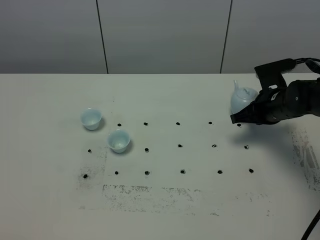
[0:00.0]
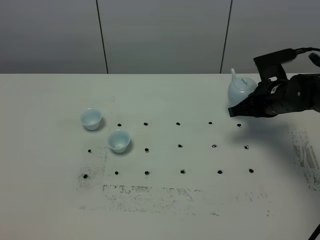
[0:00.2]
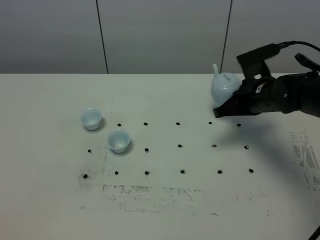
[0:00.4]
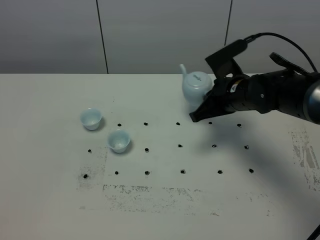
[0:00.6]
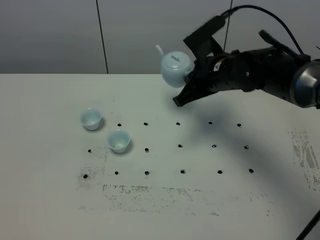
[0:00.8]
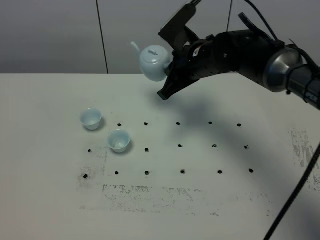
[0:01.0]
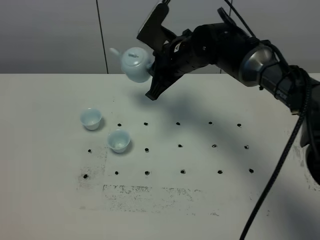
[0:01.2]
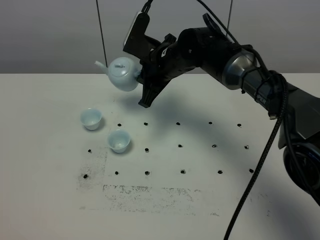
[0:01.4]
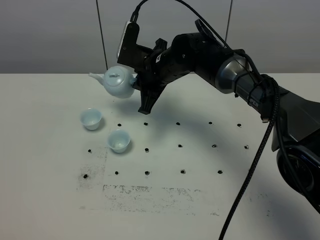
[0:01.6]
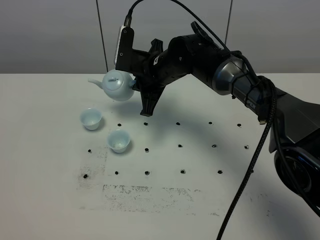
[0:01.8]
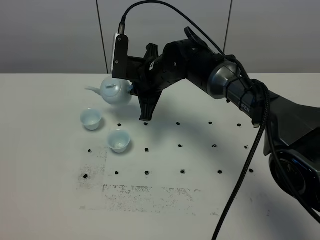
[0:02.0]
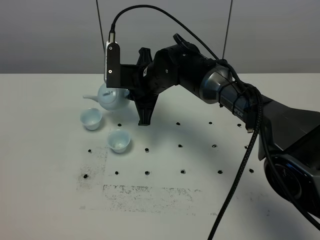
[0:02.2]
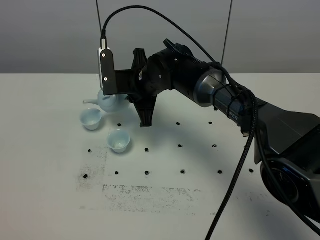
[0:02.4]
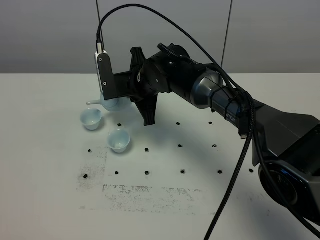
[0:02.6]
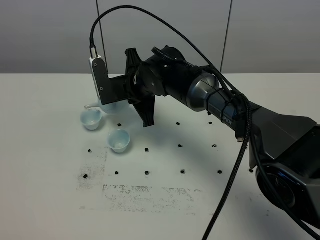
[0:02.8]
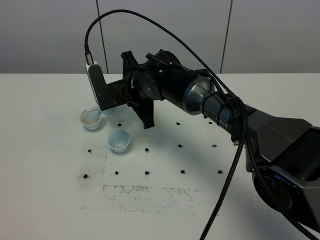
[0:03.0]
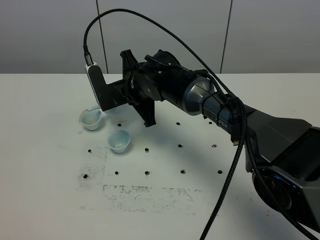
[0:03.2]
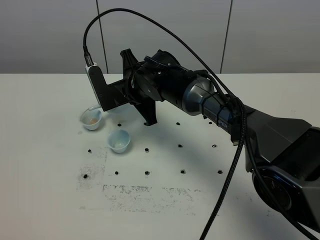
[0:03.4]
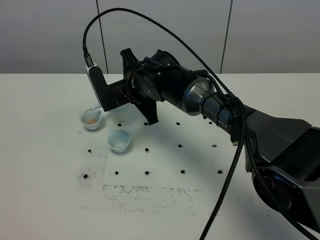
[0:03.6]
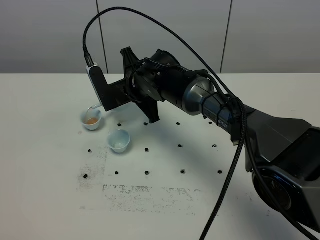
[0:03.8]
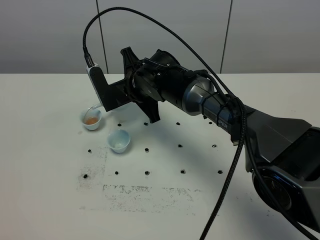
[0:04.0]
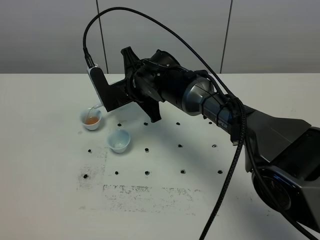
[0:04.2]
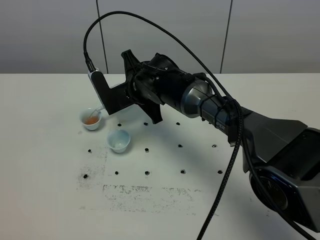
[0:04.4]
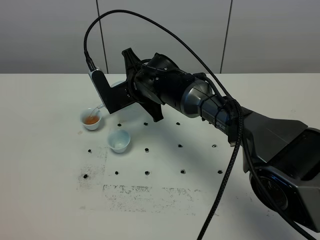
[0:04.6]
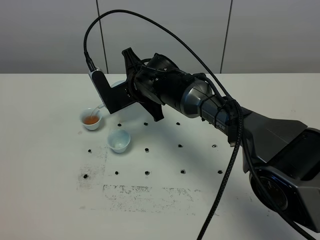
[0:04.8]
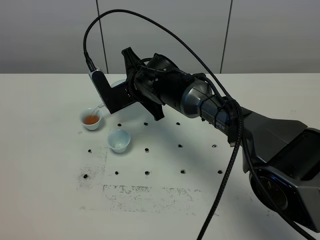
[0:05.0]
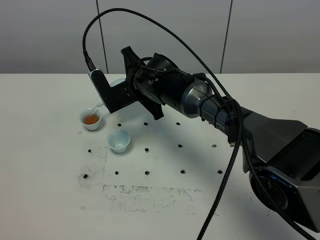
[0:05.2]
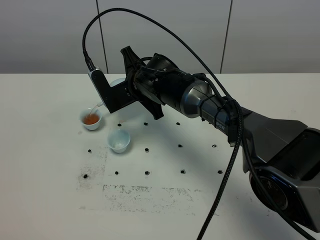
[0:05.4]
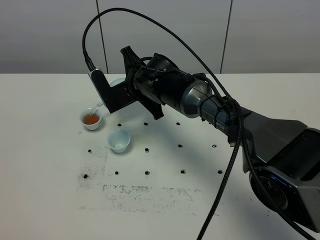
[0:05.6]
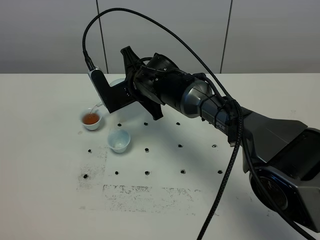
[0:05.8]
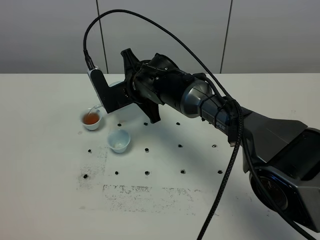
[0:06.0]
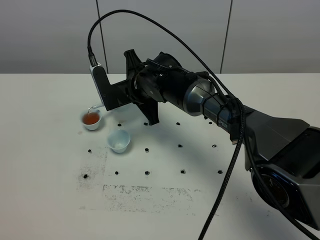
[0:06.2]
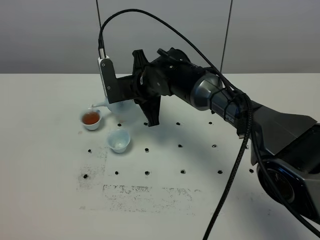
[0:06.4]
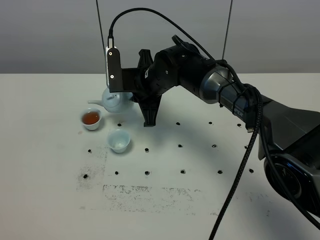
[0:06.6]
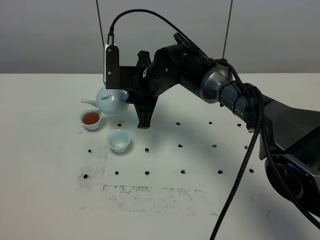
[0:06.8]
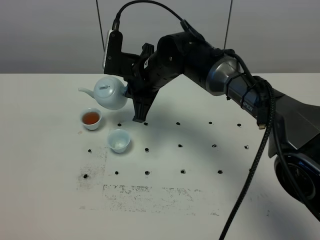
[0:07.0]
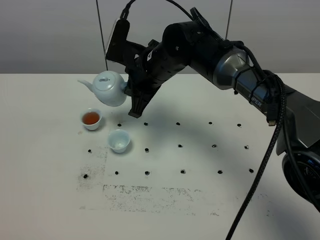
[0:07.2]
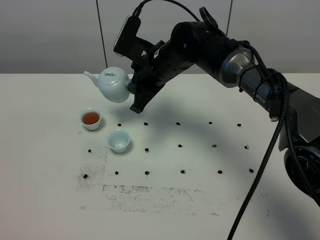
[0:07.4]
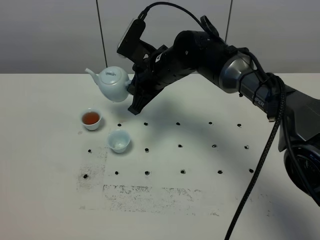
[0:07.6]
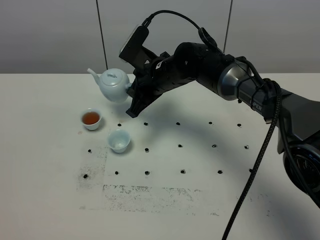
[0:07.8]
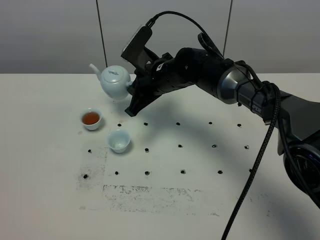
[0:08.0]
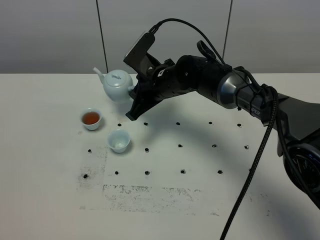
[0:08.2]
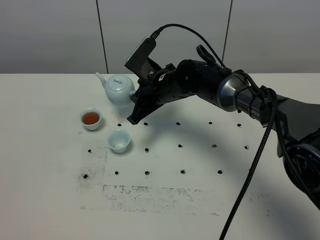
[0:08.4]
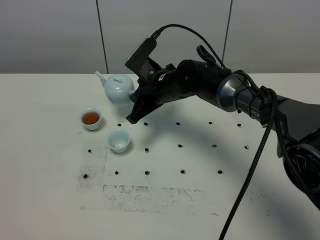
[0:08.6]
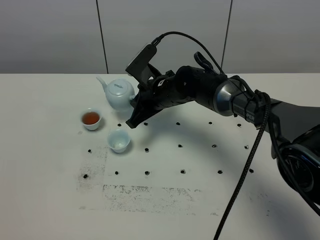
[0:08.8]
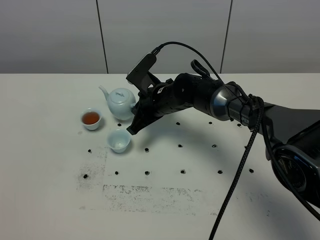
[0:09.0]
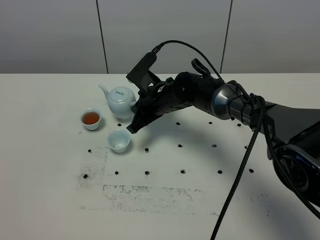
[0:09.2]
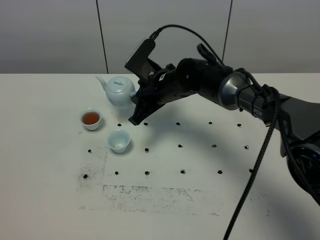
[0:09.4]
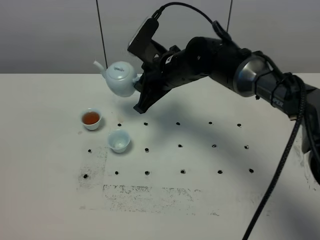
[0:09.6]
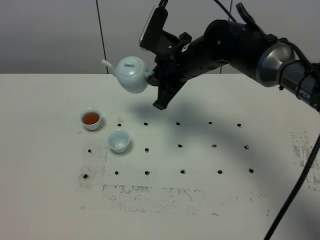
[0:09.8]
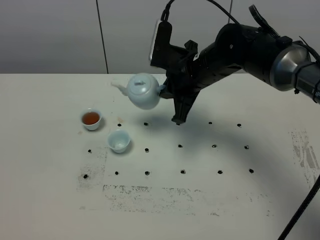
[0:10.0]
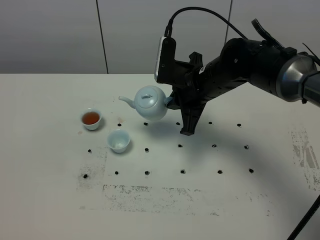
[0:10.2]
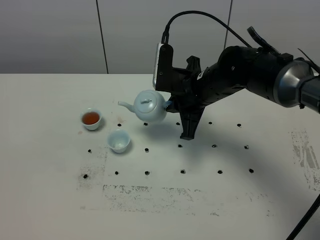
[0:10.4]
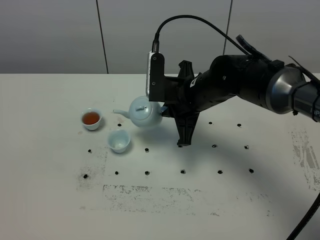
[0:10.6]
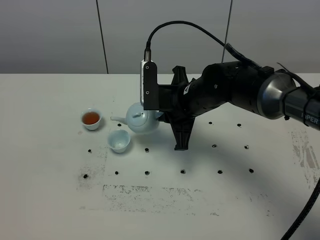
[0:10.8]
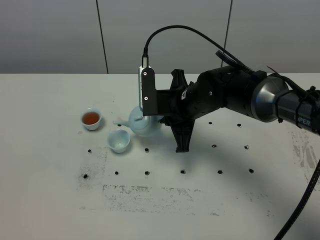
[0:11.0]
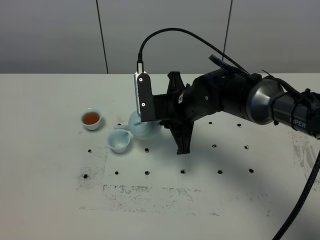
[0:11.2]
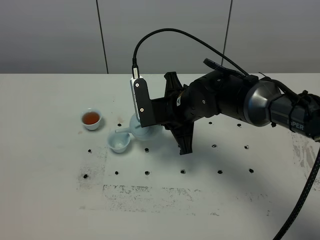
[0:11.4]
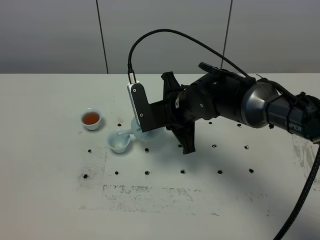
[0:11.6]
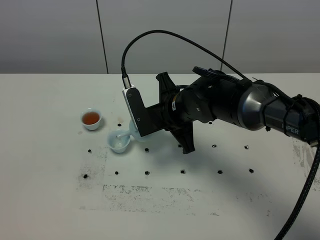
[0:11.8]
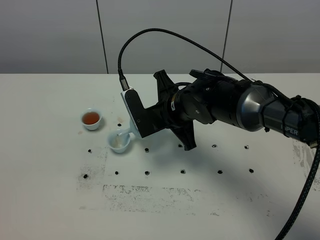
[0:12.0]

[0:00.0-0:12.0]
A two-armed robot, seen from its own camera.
Task of the whole recording: grasp the blue porcelain teapot and pour the tea into the two blue porcelain teacups one by one, put the blue porcelain teapot back in its original place.
Step, 0:00.4 to 0:06.4: Pour tea into the teacup with the right gripper.
0:00.0 to 0:01.6: The right gripper is displaced to the left by approximately 20 cm.
0:01.6 to 0:03.0: The right gripper shifts by some 5 cm.
0:03.0 to 0:04.4: The grippers stay close to where they were, moving slightly.
0:04.4 to 0:06.0: Both grippers stay about where they are.
0:07.6 to 0:09.0: The right gripper heads downward, covering approximately 10 cm.
0:09.0 to 0:10.4: The right gripper is displaced upward, to the right and backward by approximately 10 cm.

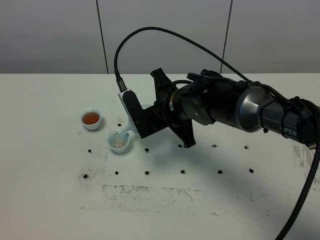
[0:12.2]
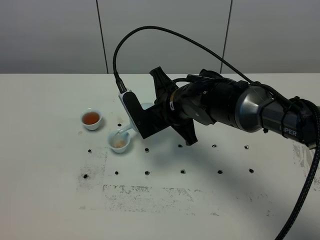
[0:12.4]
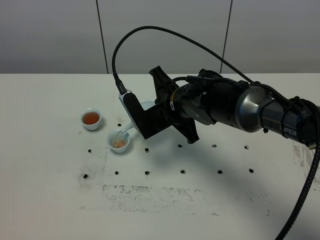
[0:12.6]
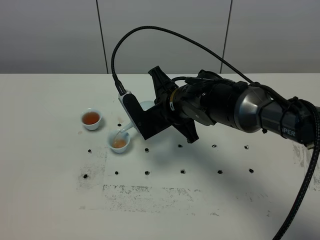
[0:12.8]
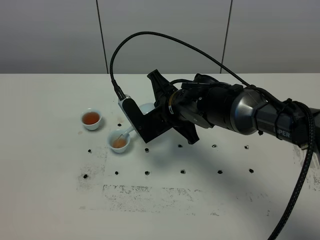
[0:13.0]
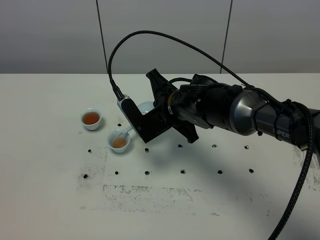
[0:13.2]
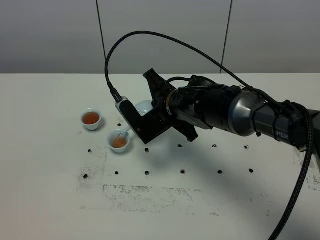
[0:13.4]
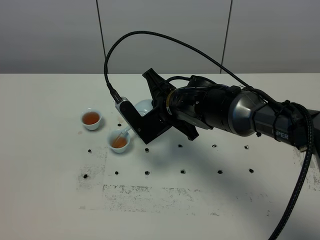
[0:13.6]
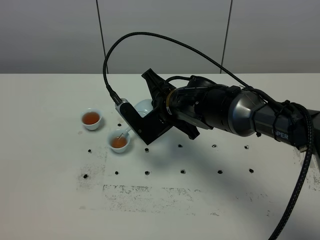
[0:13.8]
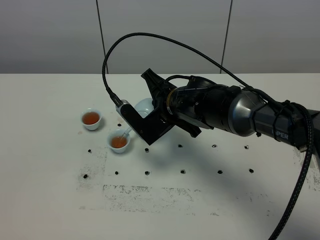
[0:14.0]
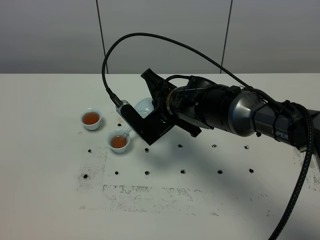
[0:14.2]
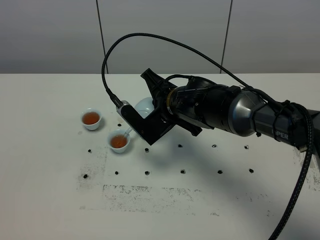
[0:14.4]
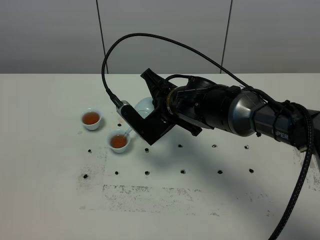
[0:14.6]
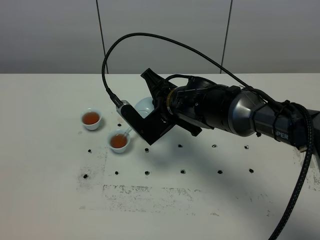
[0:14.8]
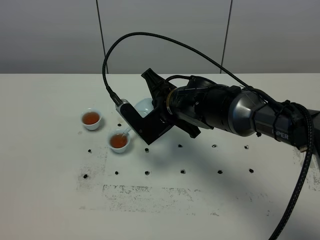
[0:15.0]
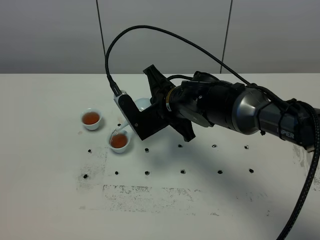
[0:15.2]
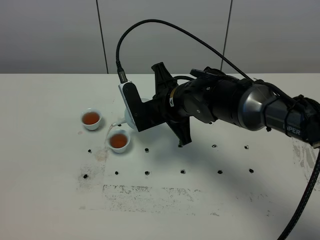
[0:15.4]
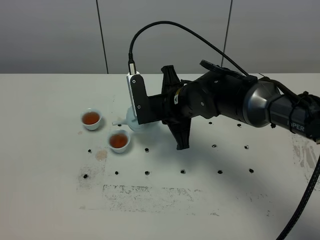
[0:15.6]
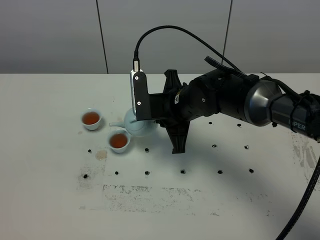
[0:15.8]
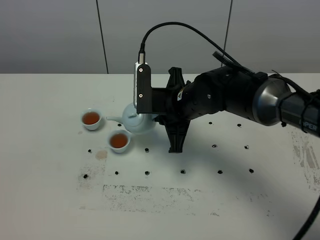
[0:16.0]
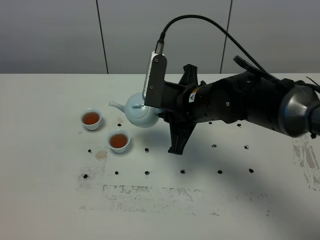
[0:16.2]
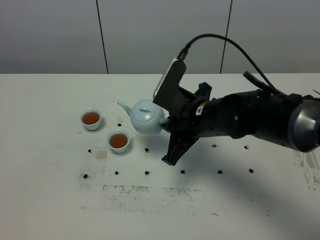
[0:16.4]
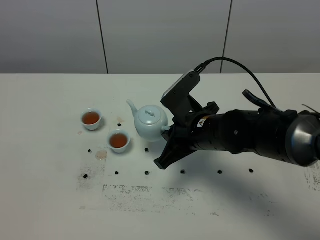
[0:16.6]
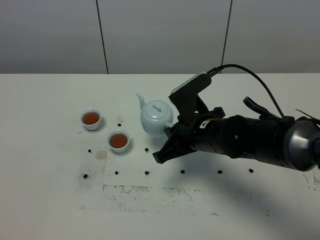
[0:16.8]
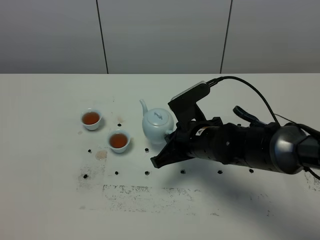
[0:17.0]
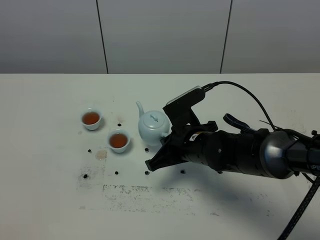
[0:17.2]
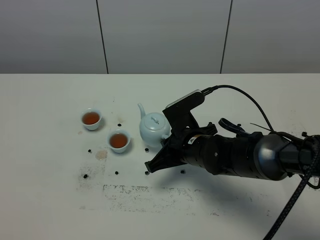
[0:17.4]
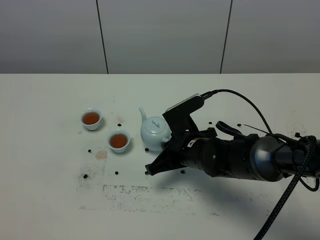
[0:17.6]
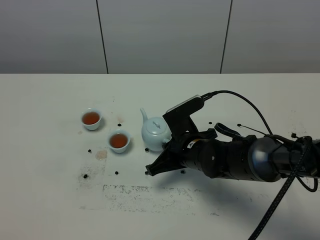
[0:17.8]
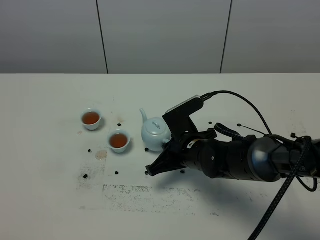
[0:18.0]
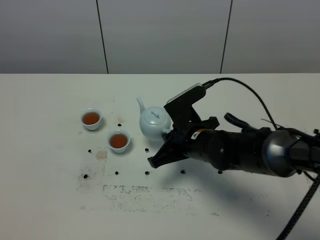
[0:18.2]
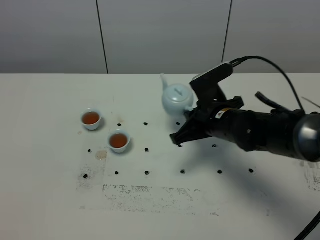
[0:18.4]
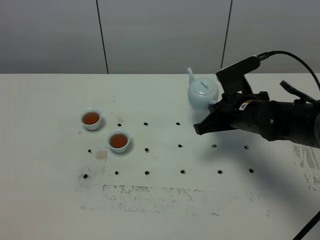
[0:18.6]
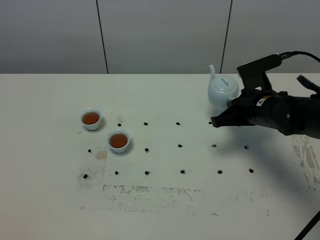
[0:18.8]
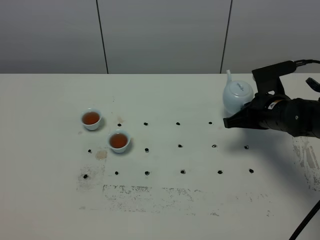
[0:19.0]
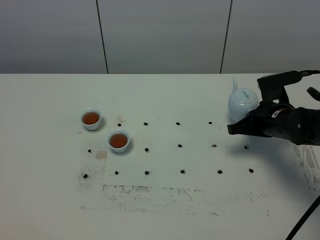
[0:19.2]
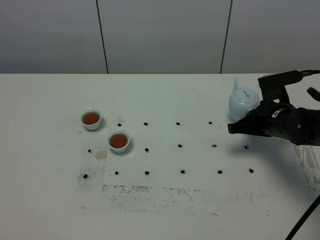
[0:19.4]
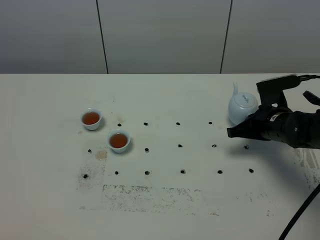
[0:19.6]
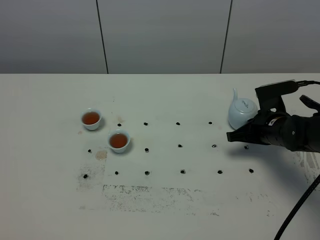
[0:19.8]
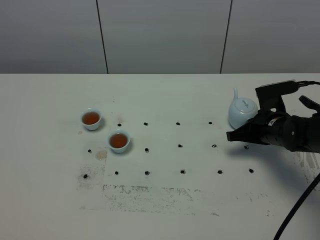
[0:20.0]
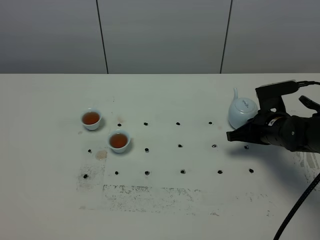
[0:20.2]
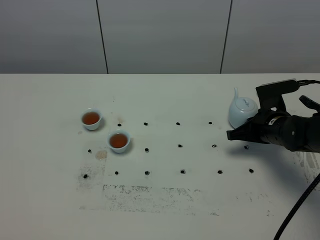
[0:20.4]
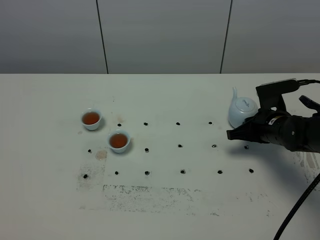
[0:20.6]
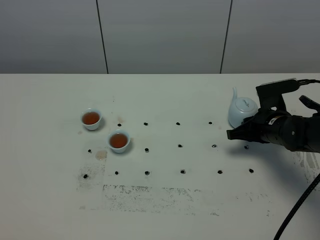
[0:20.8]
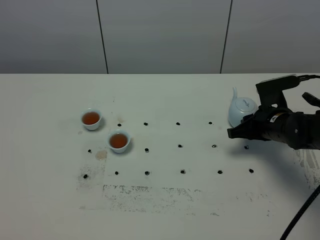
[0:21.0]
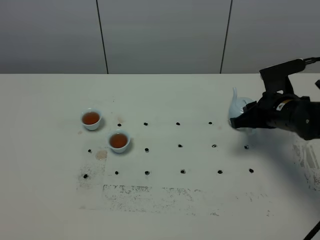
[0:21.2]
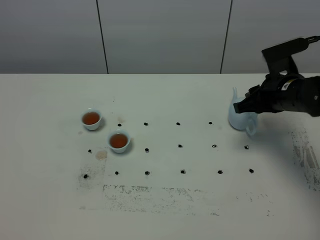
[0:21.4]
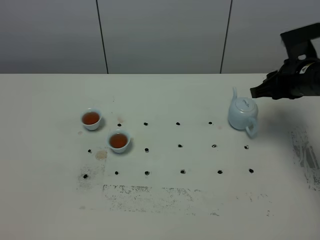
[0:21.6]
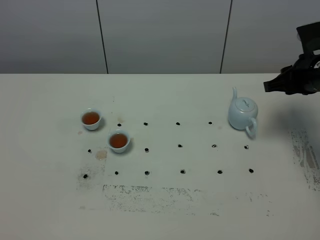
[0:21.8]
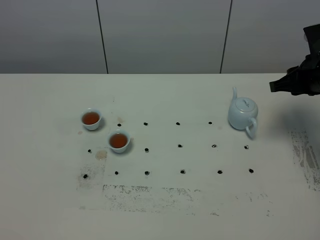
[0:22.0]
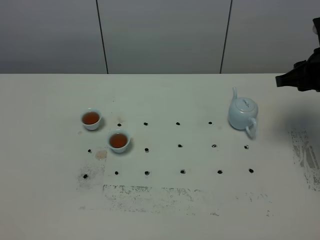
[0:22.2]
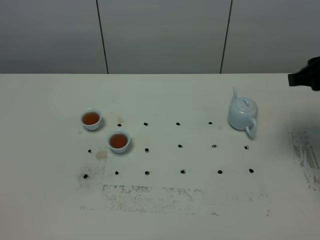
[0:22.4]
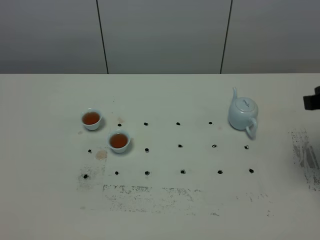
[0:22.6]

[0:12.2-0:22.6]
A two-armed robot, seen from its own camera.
Task of the whole recording: grasp the blue porcelain teapot and pour the tea into the two blue porcelain teacups one by one, put the blue porcelain teapot back in its original place.
Step, 0:12.2 to 0:15.6: Pour tea into the teacup with the right gripper.
0:12.2 to 0:15.2: The grippers move only a little.
0:15.2 to 0:16.6: The right gripper travels backward by some 5 cm.
0:18.2 to 0:19.6: The right gripper is displaced to the right by about 15 cm.
0:19.6 to 0:21.2: The right gripper heads upward, covering some 5 cm, and opens.
0:21.2 to 0:22.6: The right gripper travels upward, backward and to the right by approximately 20 cm.
